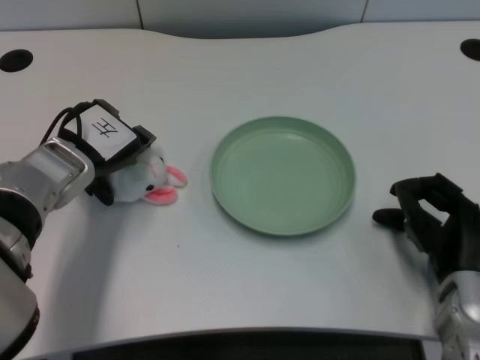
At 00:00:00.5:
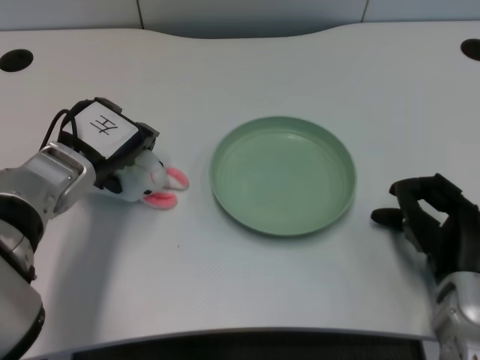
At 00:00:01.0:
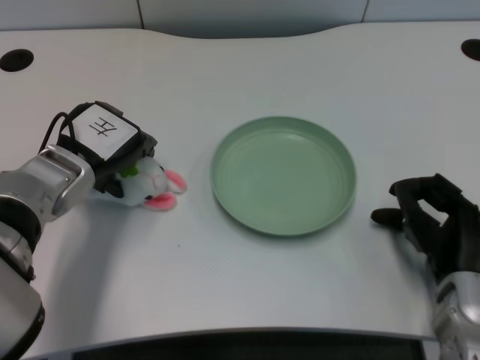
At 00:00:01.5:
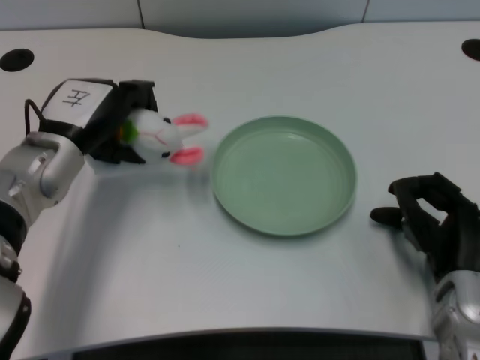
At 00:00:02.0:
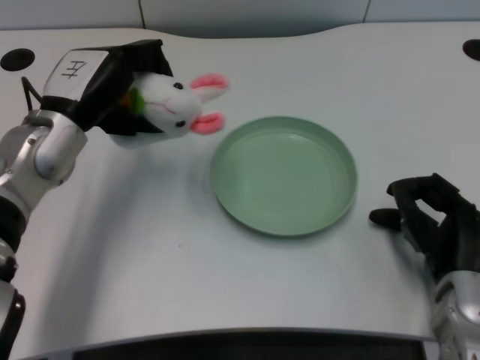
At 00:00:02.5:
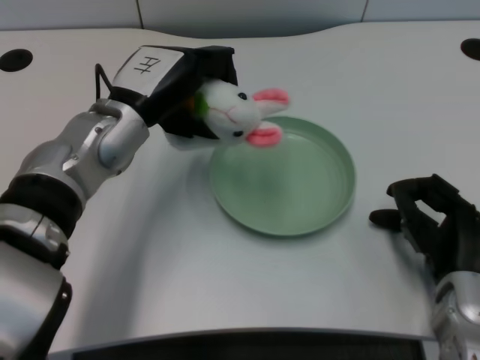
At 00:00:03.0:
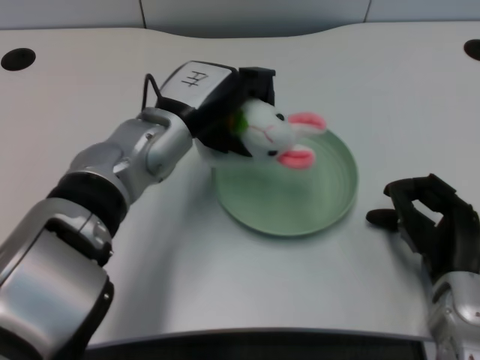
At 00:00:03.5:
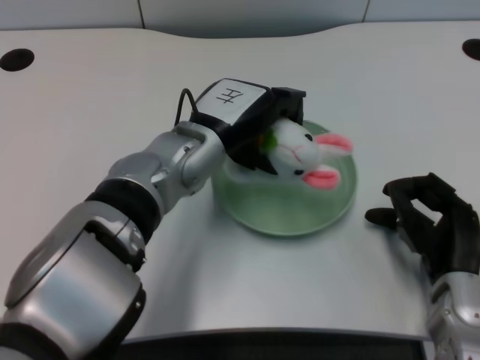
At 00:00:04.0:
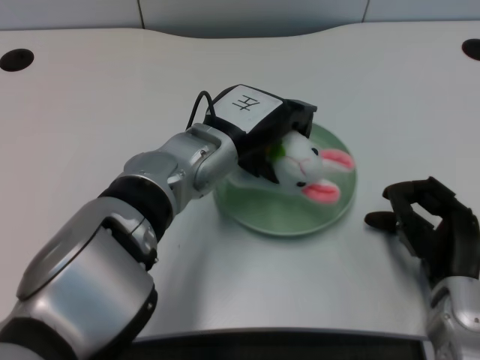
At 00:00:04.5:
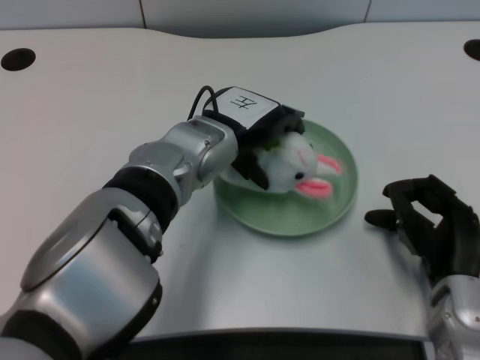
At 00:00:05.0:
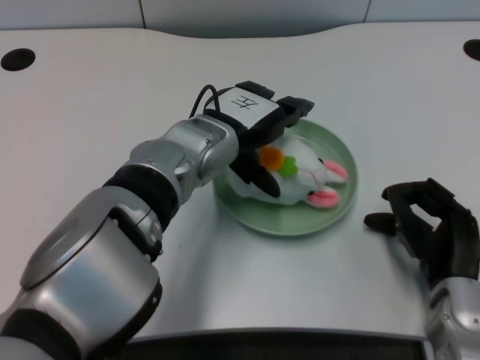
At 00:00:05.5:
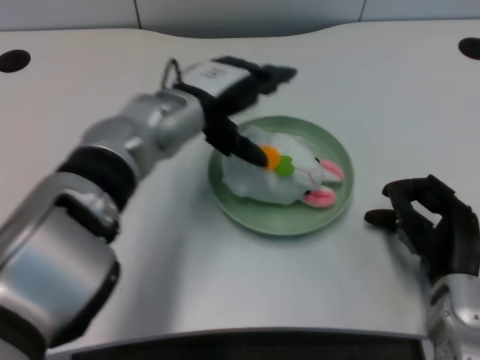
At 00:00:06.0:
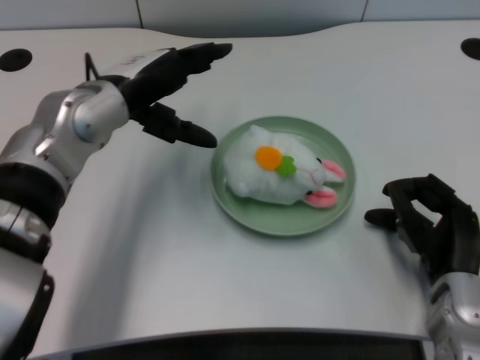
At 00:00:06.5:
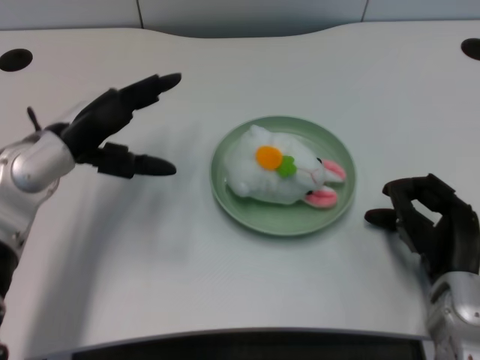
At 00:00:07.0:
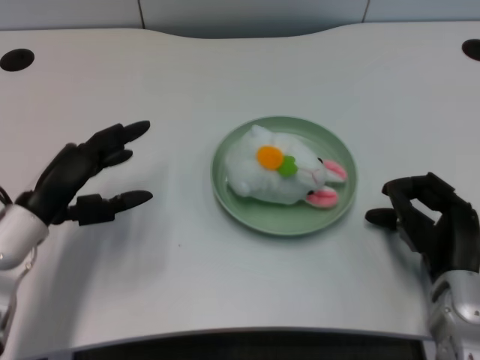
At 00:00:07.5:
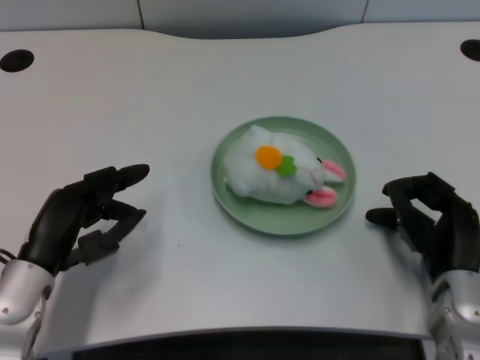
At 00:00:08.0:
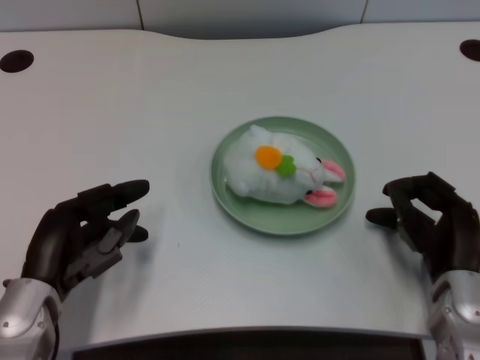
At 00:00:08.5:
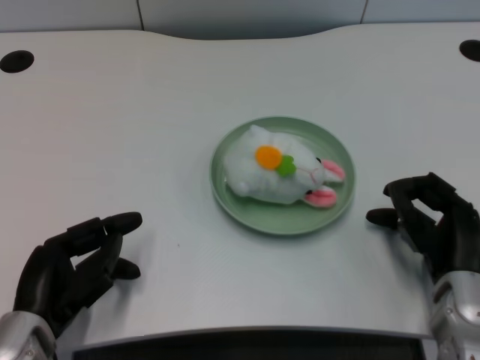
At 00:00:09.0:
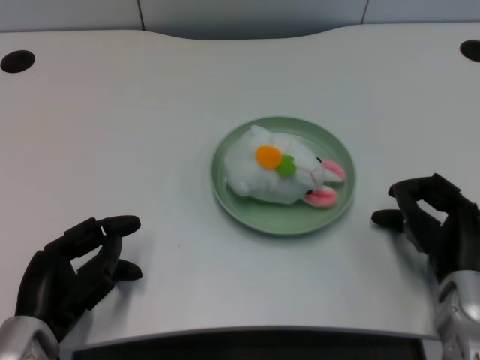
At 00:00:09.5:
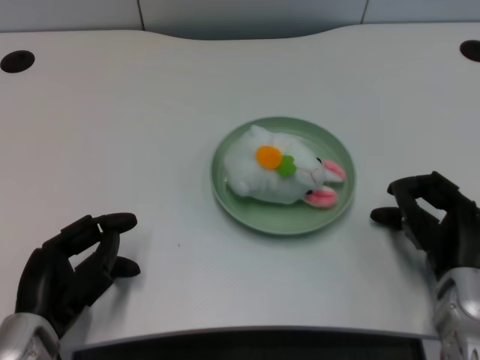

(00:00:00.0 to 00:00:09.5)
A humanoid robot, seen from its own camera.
Task of the whole recording: pick up the rabbit doll from the table and place it on the plate.
Step, 00:00:01.5 - 00:00:05.0: Place the rabbit doll into the plate with the left gripper.
00:00:02.0 - 00:00:04.0: The left hand is displaced to the right by roughly 15 cm.
00:00:04.0 - 00:00:05.5: The left hand changes place by roughly 5 cm.
00:00:05.5 - 00:00:07.5: The left hand heads backward, to the left and downward, covering roughly 20 cm.
